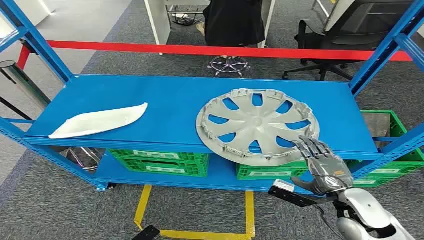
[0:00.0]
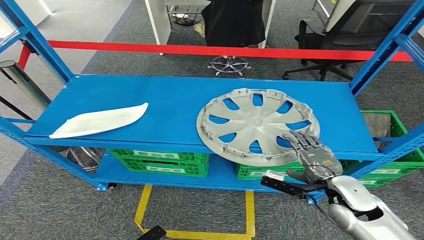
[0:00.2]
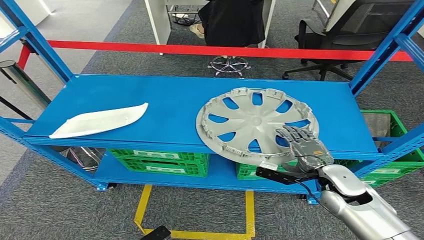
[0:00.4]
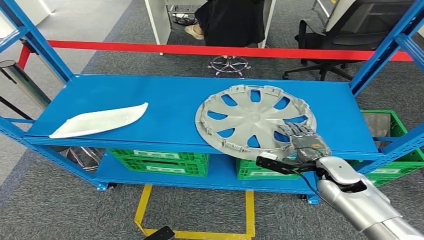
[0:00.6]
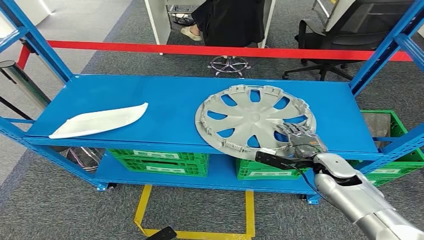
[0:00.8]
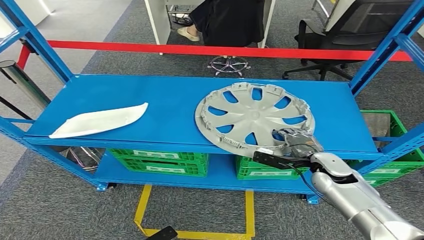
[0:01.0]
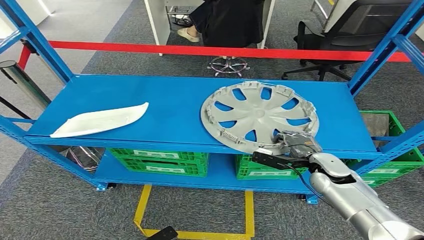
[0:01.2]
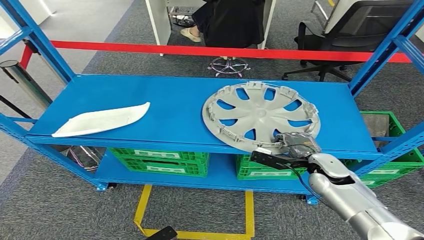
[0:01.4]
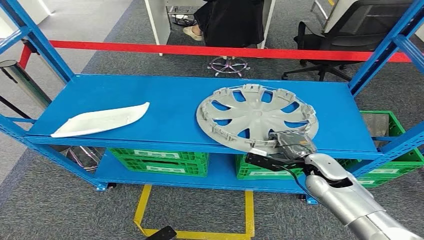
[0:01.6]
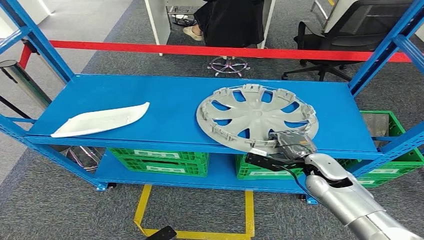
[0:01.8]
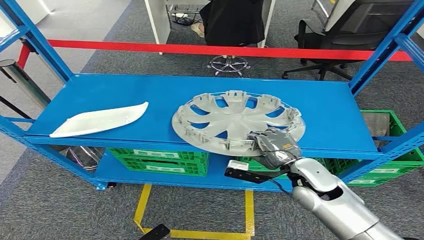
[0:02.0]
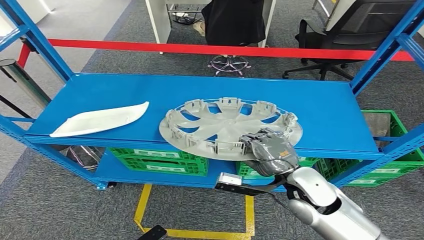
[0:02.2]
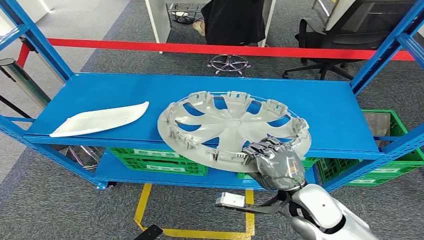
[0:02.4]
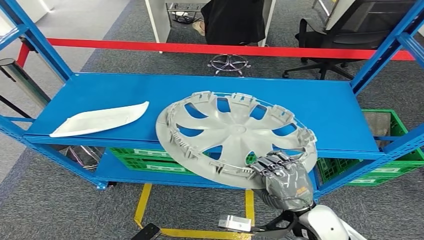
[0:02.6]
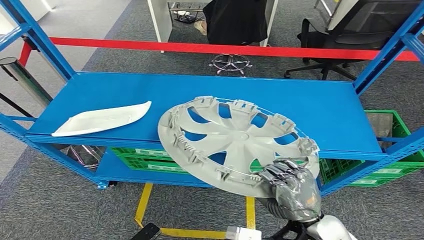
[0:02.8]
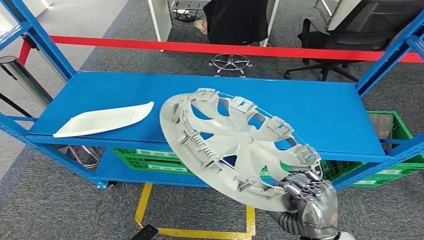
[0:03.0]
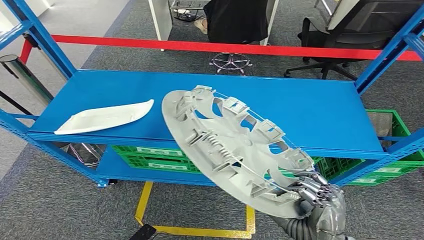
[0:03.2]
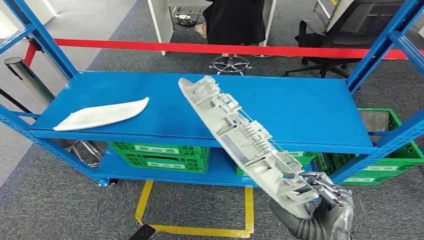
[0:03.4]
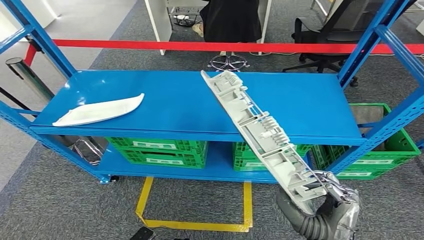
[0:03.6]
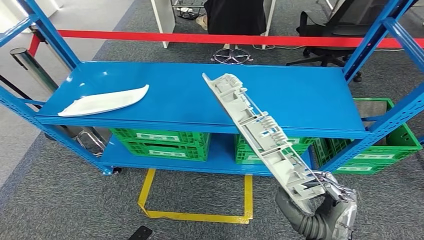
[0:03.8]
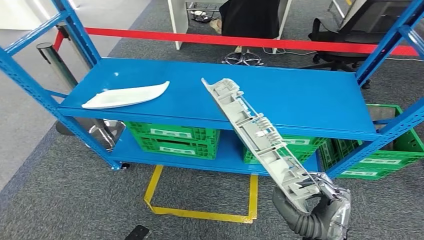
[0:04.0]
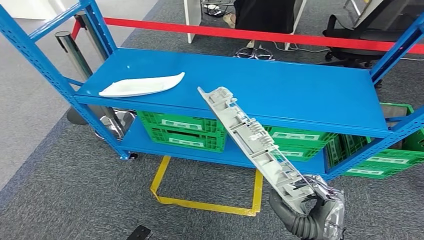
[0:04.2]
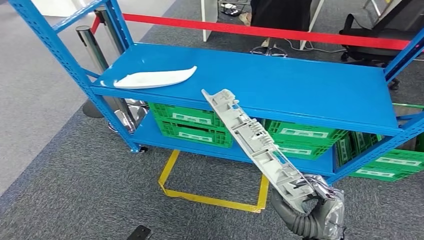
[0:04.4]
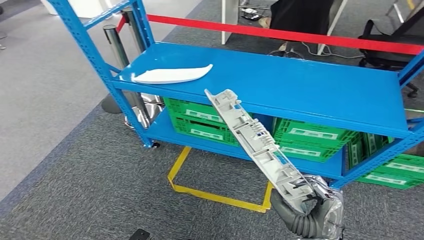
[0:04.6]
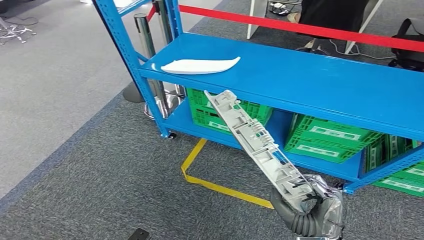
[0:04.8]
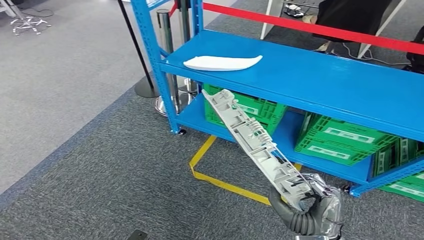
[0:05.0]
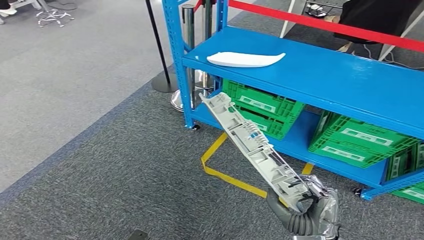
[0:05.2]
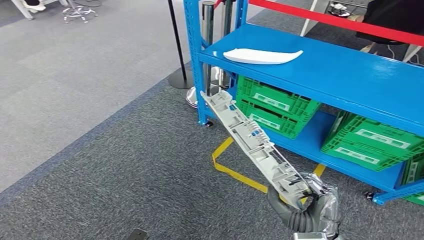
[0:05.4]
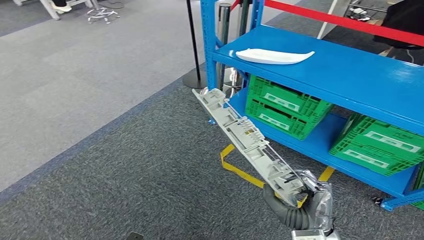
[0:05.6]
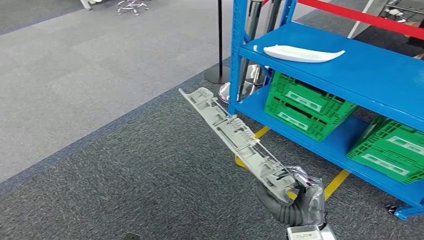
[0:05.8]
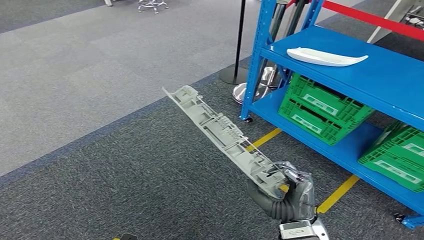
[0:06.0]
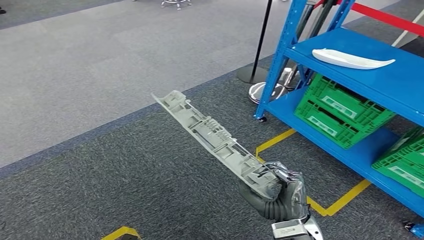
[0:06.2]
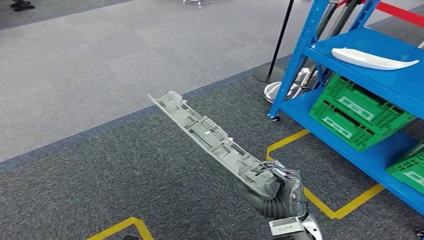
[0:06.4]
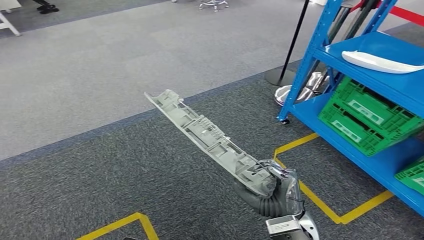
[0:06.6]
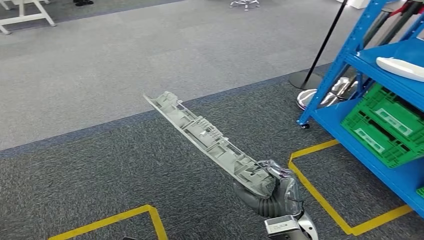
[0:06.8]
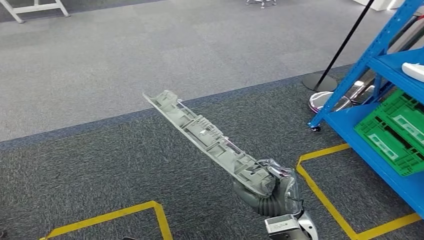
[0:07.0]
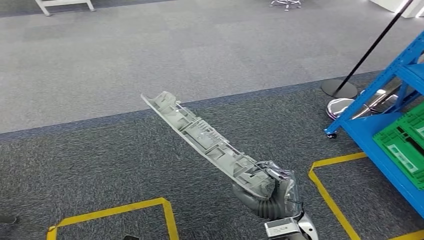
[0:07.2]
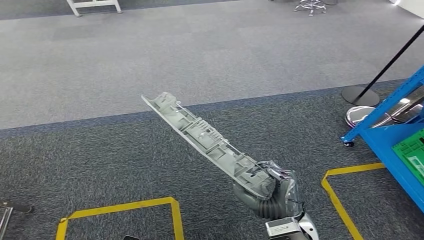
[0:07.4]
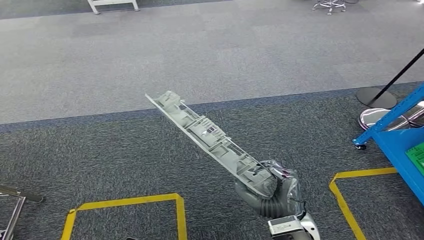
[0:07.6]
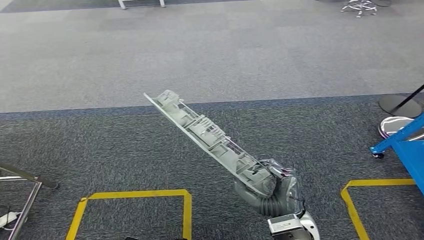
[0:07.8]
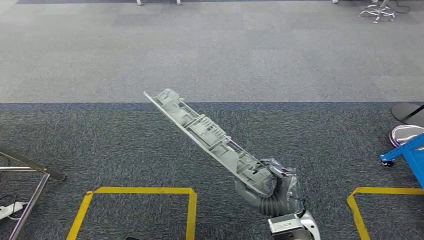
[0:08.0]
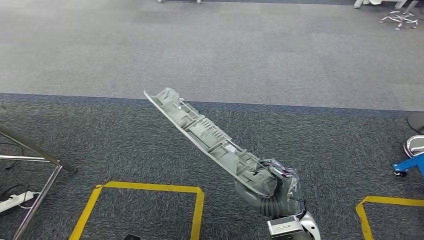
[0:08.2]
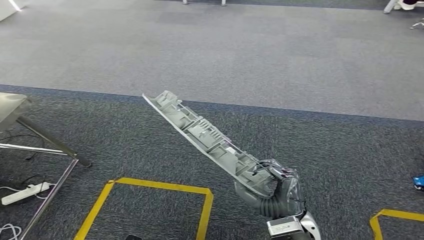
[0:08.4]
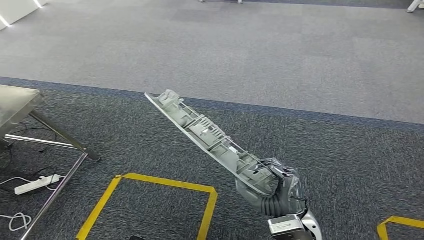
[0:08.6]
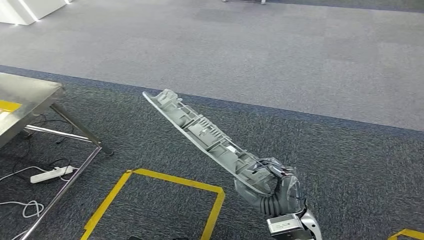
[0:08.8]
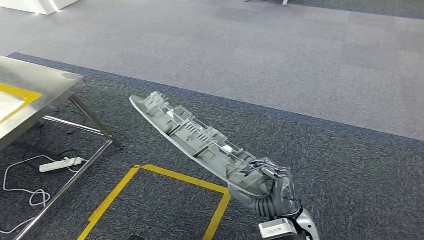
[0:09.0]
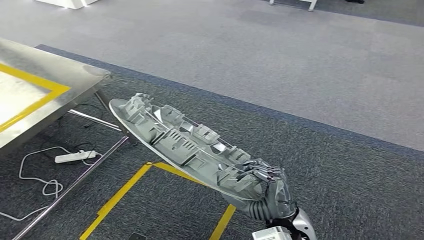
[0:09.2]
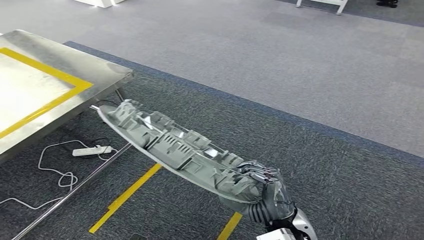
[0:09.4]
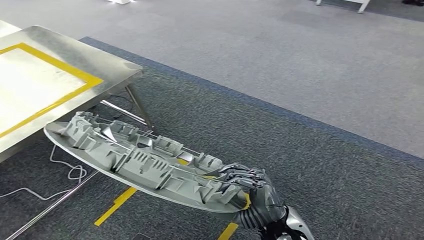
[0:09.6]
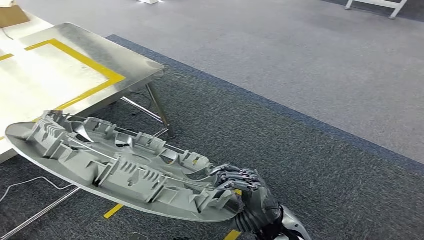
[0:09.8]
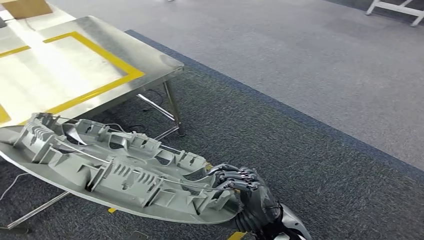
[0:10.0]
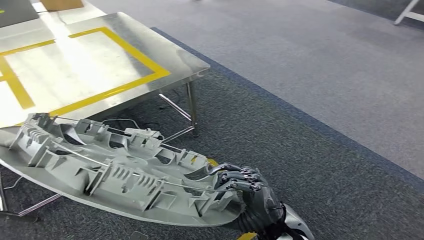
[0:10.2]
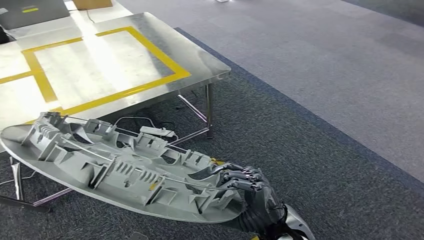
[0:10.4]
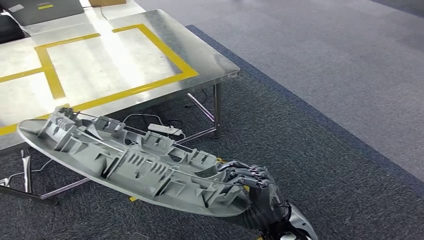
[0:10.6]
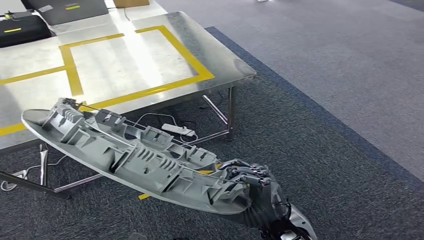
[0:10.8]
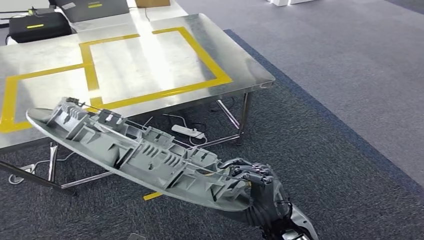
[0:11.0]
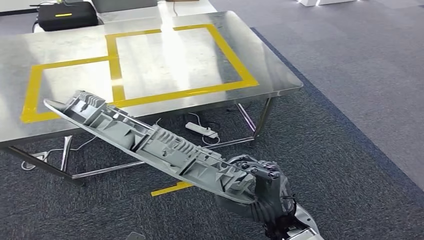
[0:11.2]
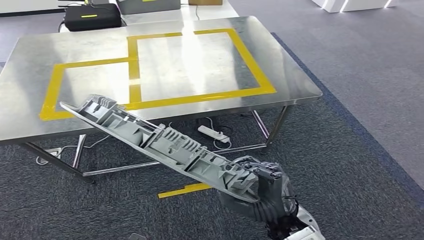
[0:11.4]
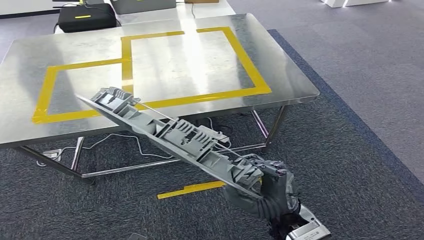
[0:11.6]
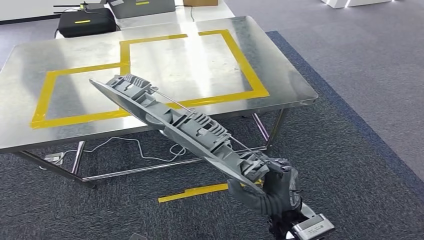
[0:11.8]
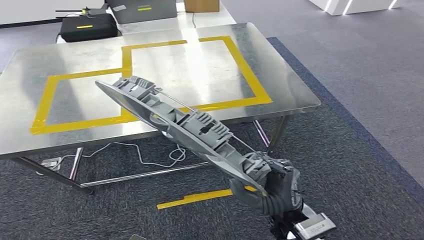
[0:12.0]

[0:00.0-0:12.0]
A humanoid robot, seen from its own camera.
Step, 0:00.0 to 0:03.8: Pick up the small component from the shelf.

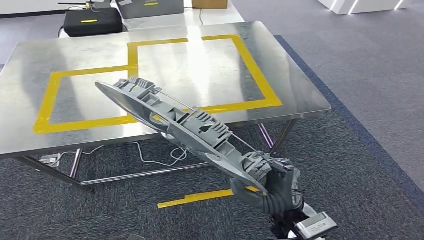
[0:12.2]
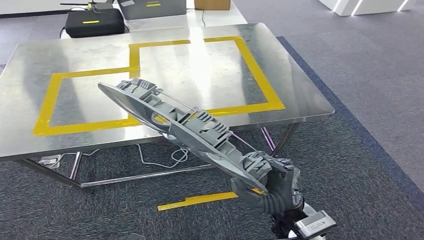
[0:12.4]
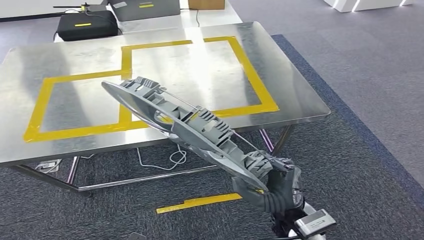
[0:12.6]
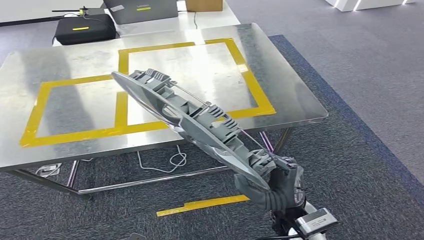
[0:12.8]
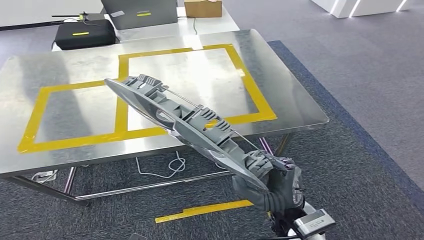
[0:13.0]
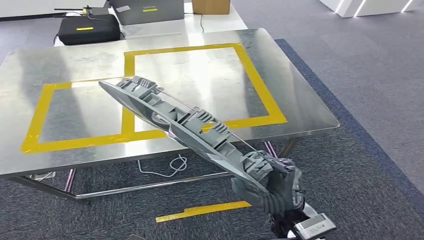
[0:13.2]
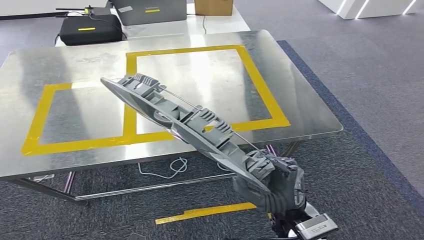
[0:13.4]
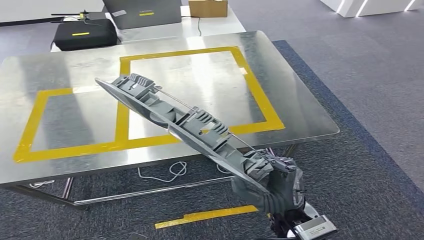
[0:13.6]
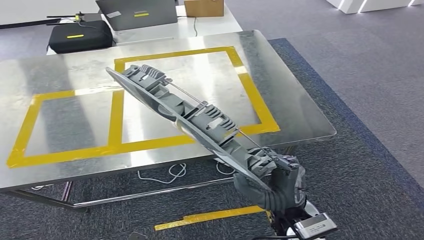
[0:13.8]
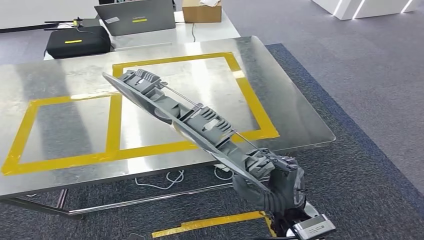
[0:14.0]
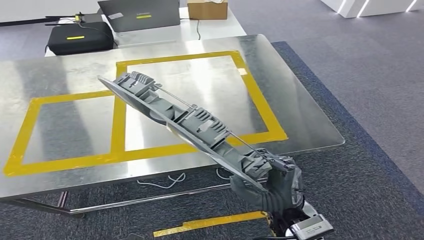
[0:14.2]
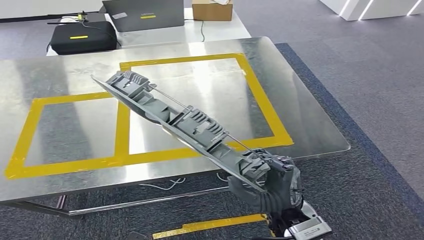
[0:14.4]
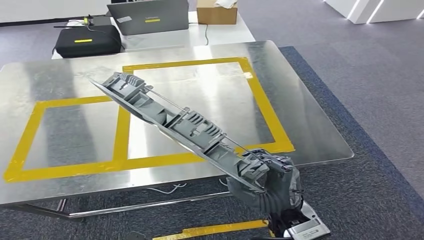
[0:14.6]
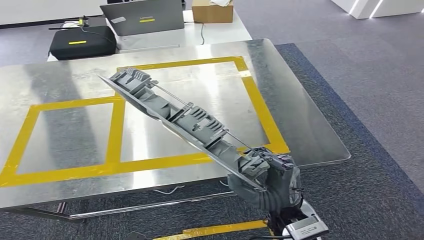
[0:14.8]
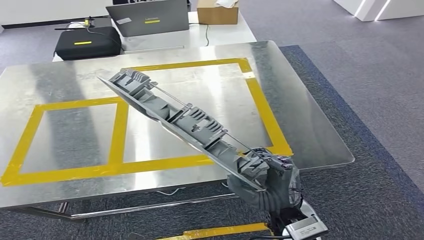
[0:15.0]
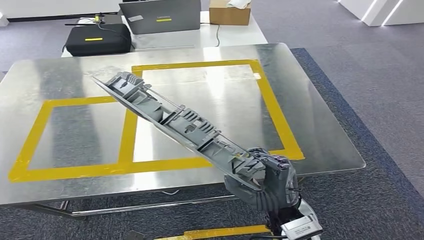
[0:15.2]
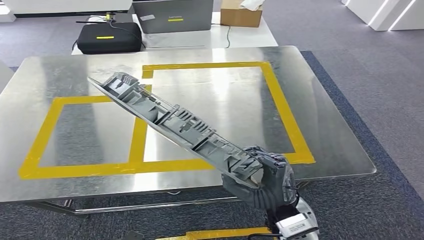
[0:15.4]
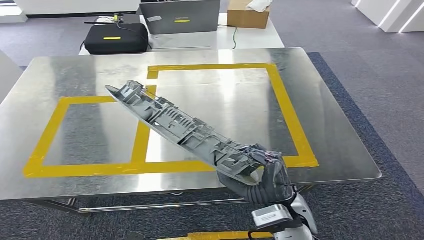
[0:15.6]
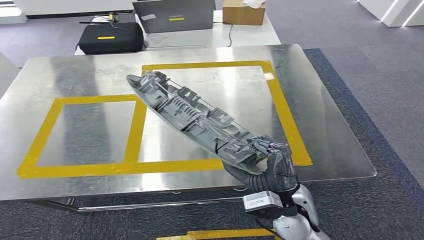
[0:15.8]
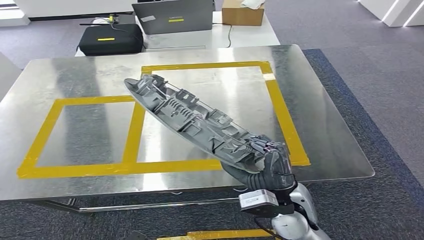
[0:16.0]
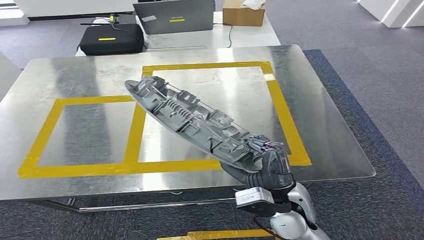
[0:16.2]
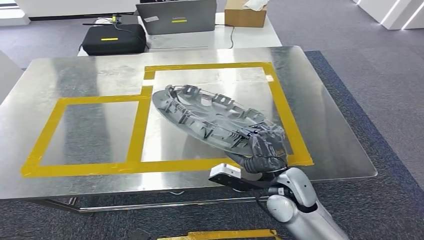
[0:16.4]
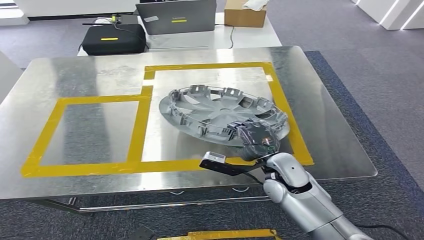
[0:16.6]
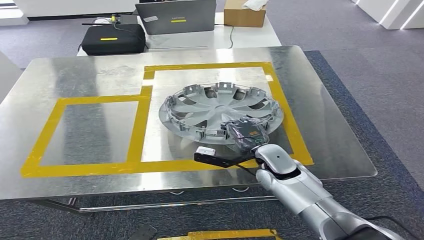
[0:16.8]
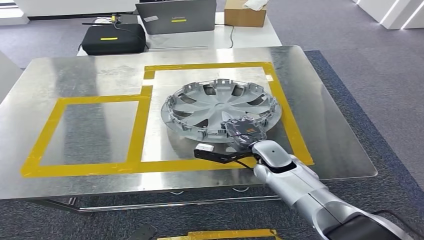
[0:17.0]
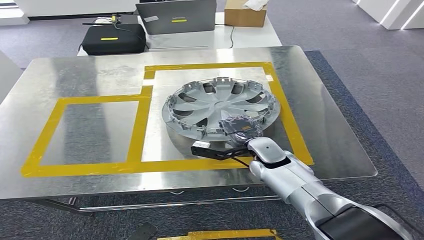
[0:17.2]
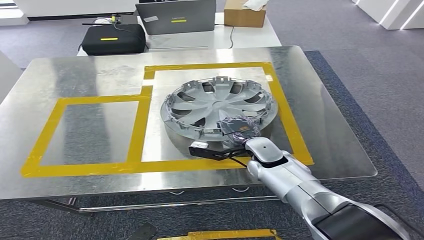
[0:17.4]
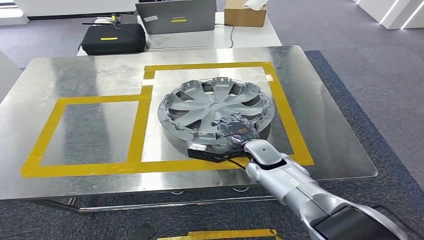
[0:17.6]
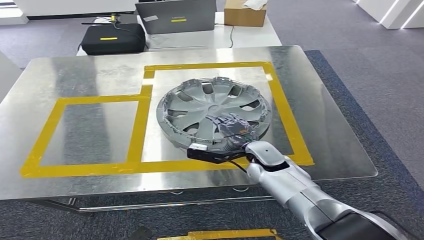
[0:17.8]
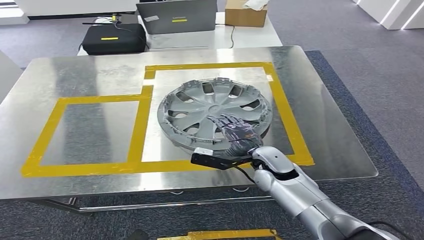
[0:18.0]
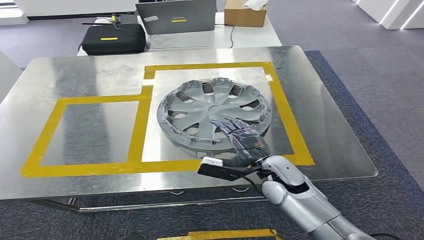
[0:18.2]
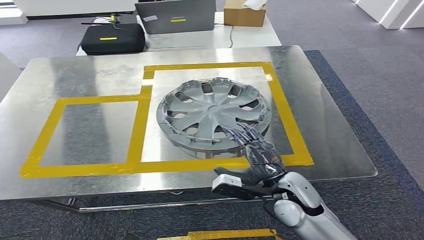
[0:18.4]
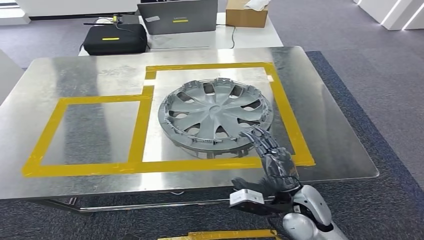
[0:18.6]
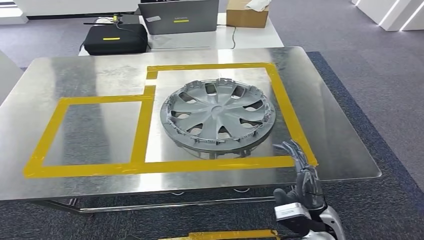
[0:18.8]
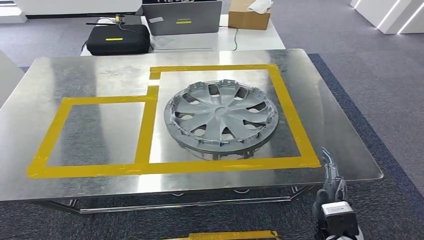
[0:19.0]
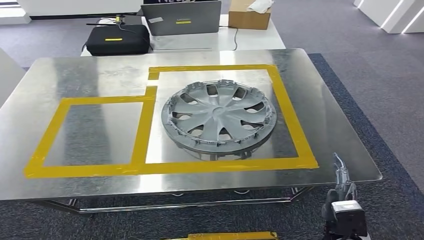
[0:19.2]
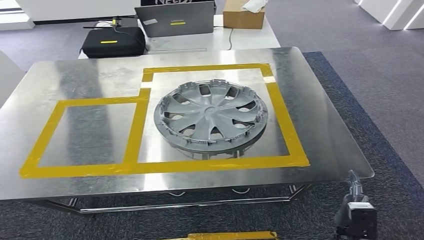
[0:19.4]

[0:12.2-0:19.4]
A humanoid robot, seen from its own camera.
Step, 0:13.0 to 0:18.0: Insert the small component into the corresponding slot on the workbench.
